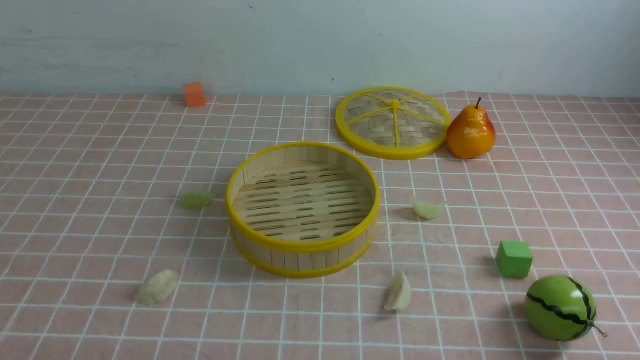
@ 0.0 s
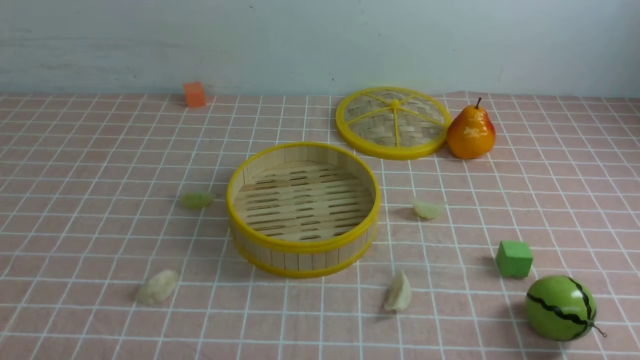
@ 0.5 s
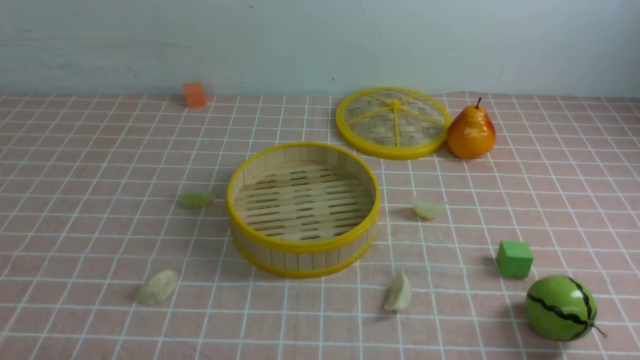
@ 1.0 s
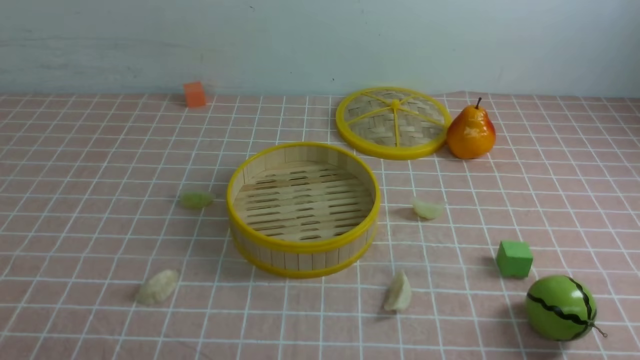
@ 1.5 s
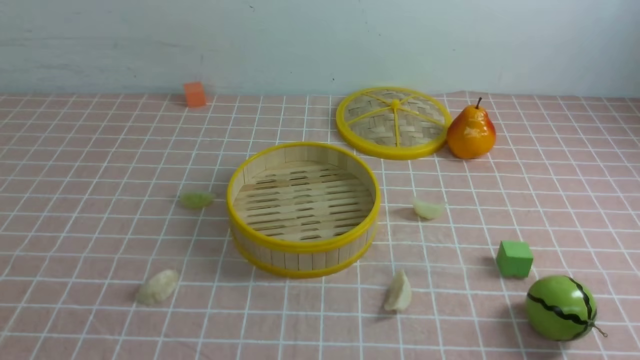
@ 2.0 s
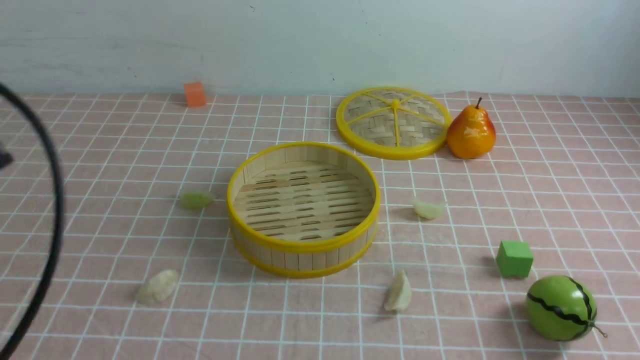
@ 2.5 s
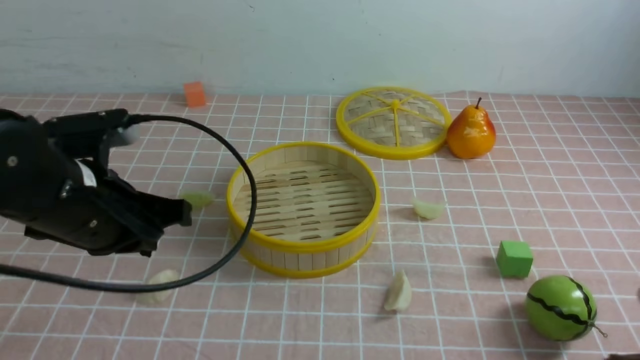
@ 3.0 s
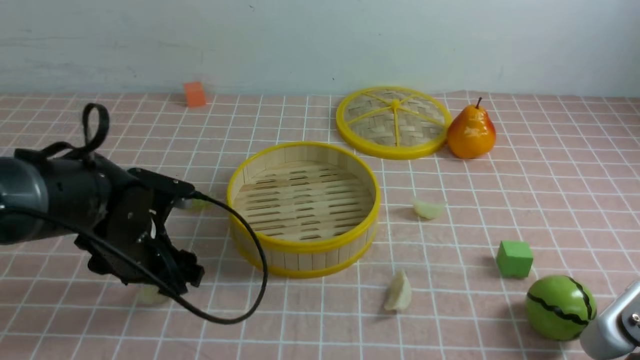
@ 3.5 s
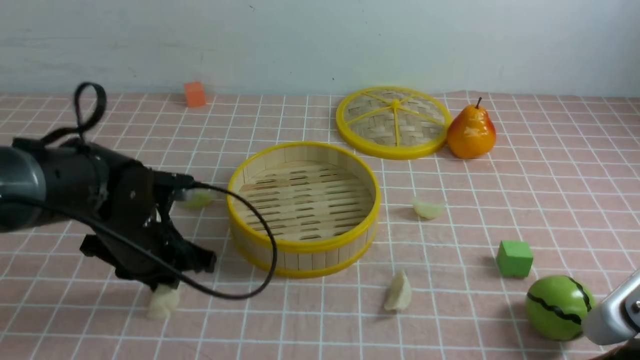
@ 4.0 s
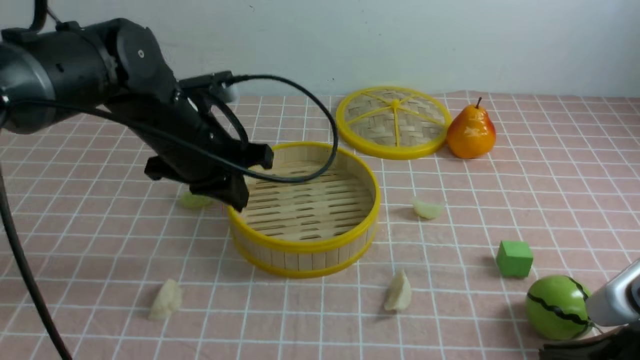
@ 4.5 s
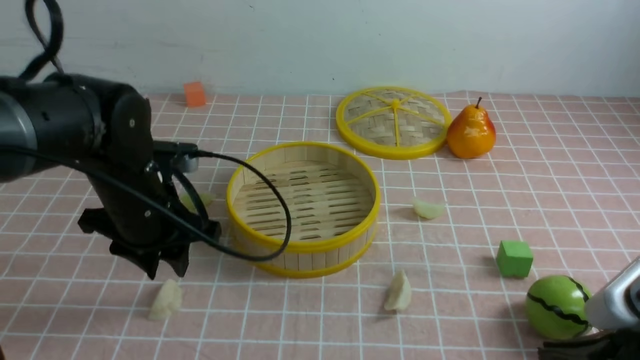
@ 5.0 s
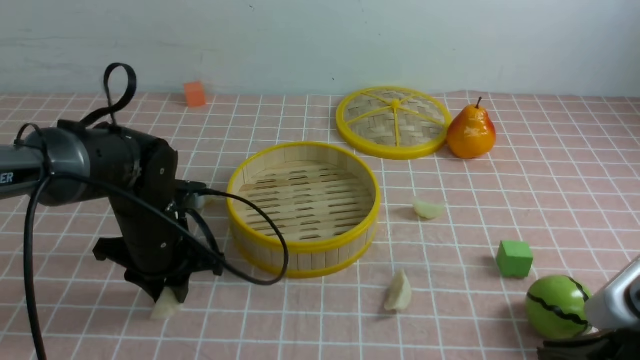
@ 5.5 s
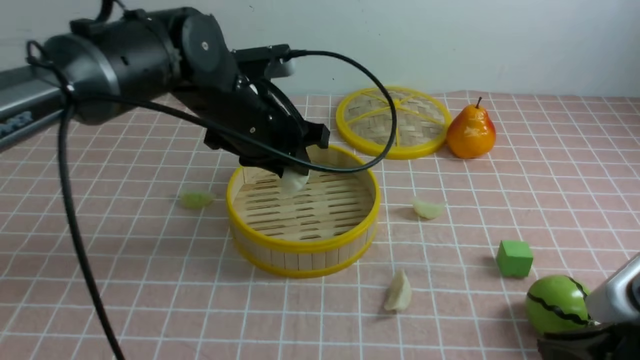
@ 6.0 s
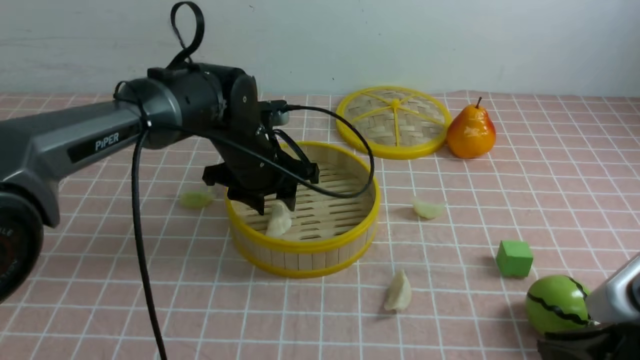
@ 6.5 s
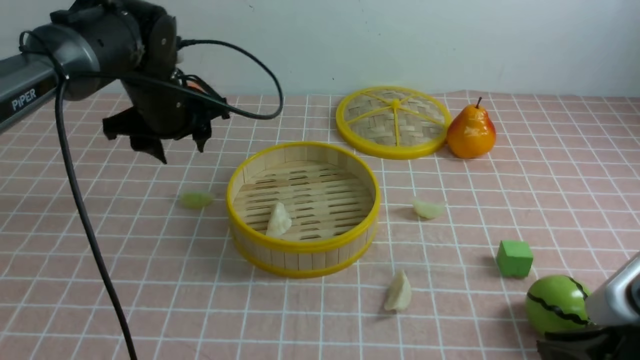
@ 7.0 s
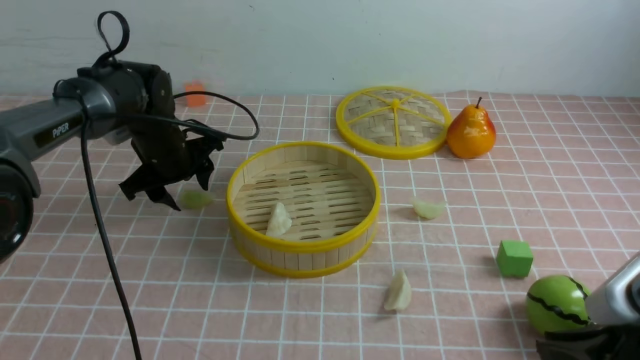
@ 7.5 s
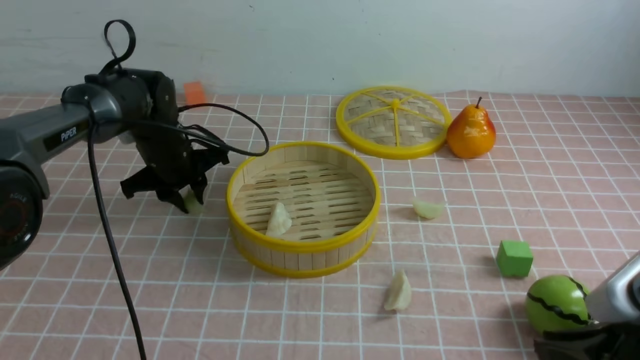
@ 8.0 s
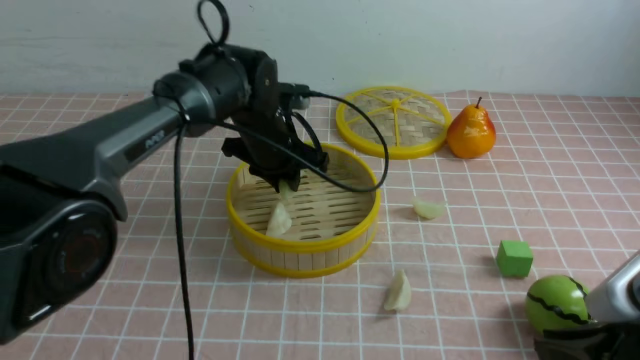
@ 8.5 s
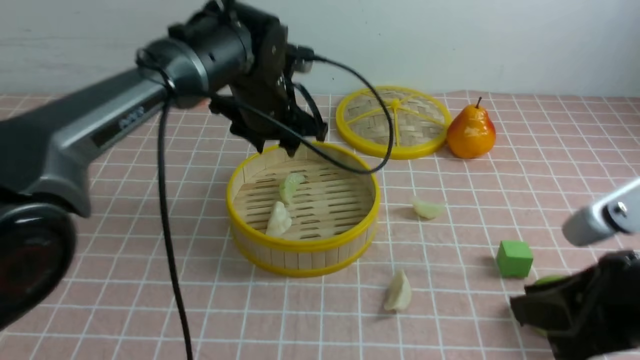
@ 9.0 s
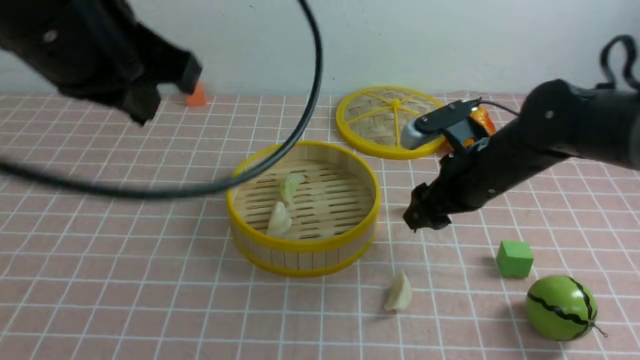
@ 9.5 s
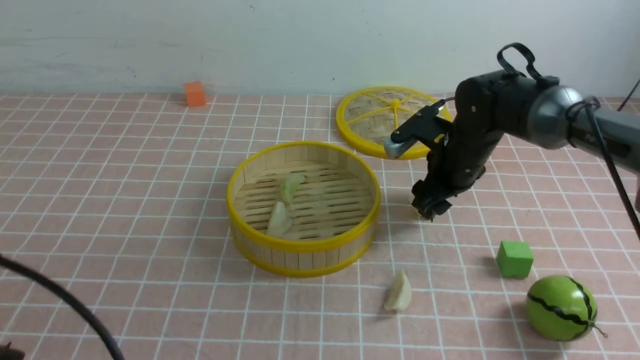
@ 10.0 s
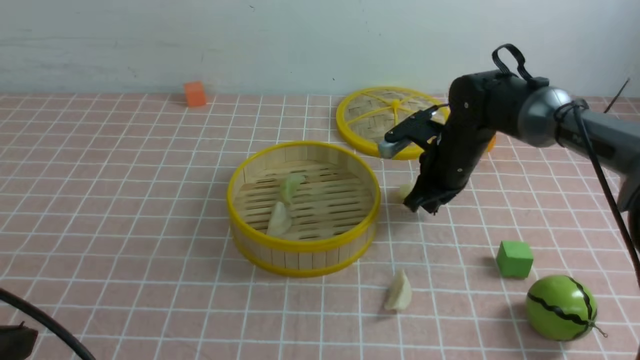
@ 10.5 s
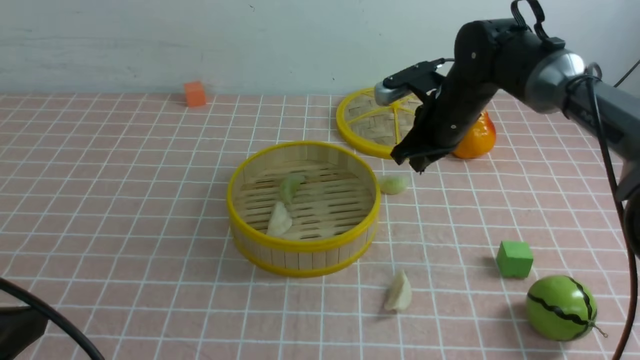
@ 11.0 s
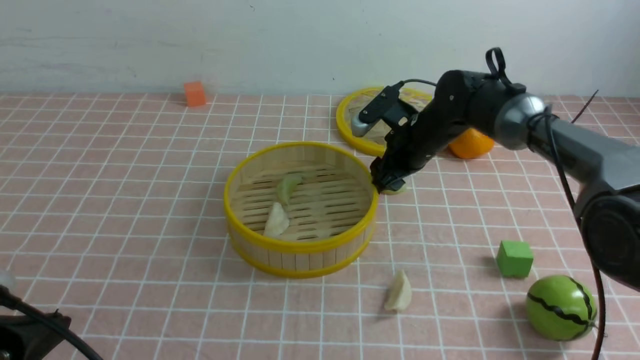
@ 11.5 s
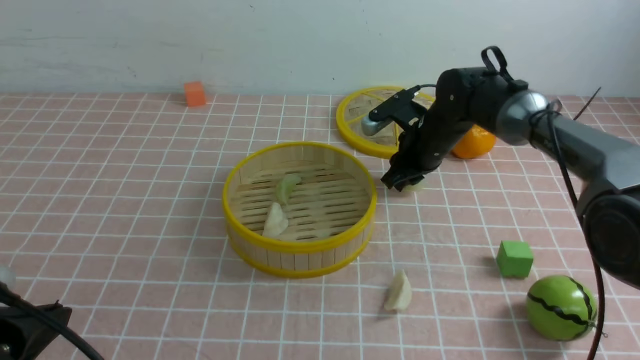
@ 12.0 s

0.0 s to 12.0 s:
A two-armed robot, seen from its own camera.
Task of the whole recording: put the dumplings into the steamer on the table with the pink tablecloth.
Step, 0.0 to 5.5 s: use the left arm to grab a dumpling.
Step, 6.0 to 6.5 s: use the left arm to put the dumpling into the steamer.
Step, 7.0 to 8.0 s: use the left arm to grab a dumpling.
Step, 9.0 to 12.0 s: use the right arm to grab a dumpling.
2.0 to 4.0 s: The left gripper heads forward, covering roughly 30 cm, and opens, then closes once more. Meanwhile the right gripper moves forward and to the left, roughly 10 cm.
4.0 to 6.0 s: The left gripper moves up and down over about 10 cm, changing direction 2 times, and closes, then opens again.
6.0 to 8.0 s: The left gripper moves forward, to the left and downward, some 15 cm, and opens, then closes again.
8.0 to 10.0 s: The right gripper heads forward, covering about 30 cm, and opens up. The left gripper moves backward and upward, approximately 40 cm, and closes its fingers.
10.0 to 12.0 s: The left gripper shifts some 5 cm downward, while the right gripper shifts roughly 5 cm forward, and closes up.

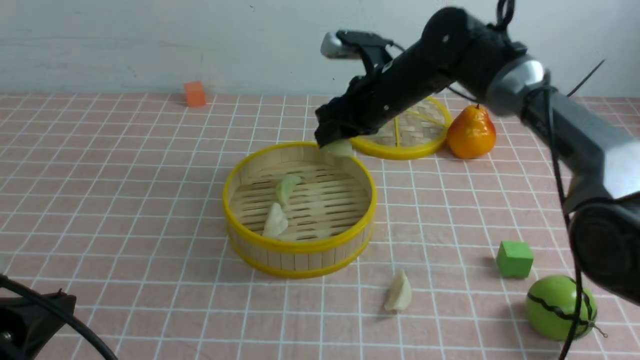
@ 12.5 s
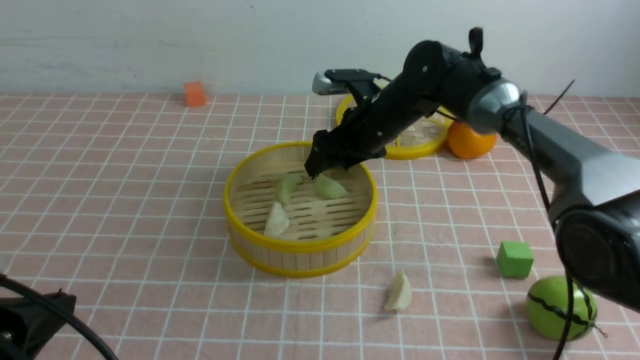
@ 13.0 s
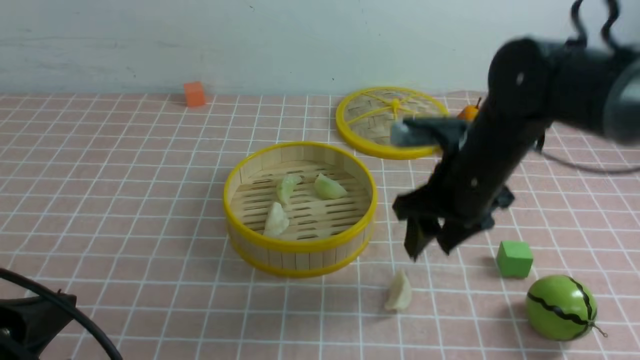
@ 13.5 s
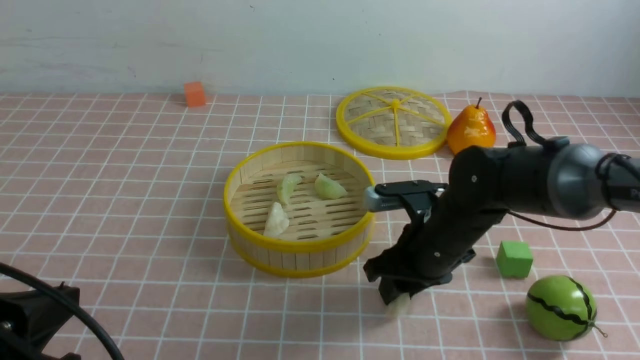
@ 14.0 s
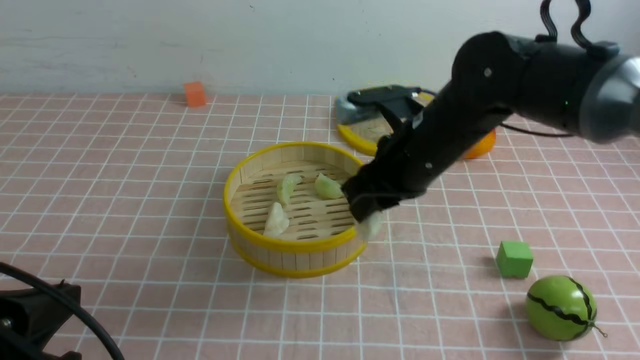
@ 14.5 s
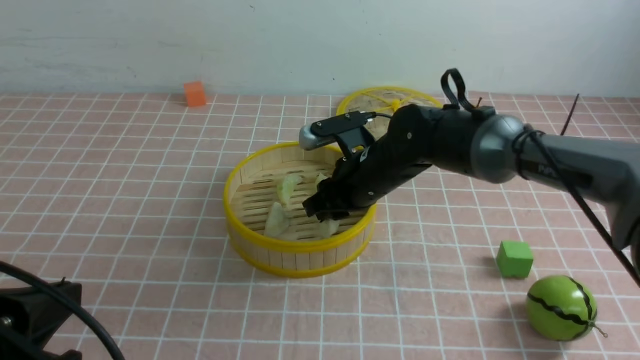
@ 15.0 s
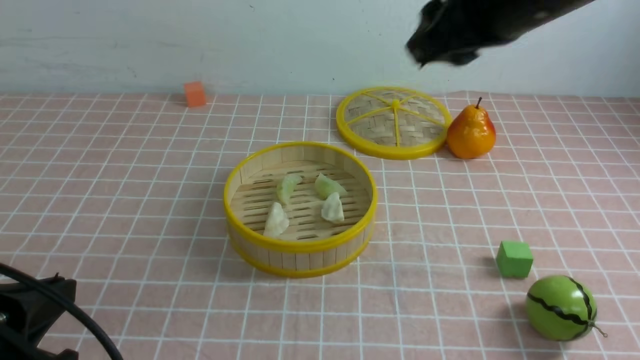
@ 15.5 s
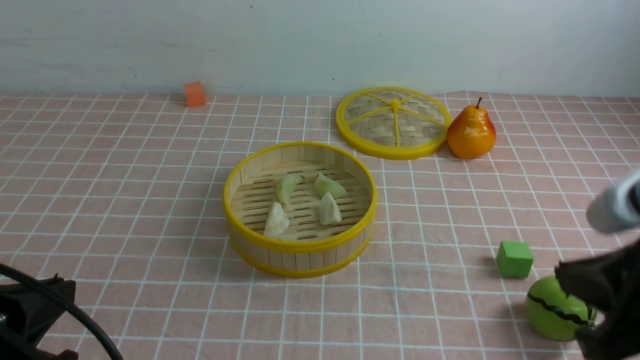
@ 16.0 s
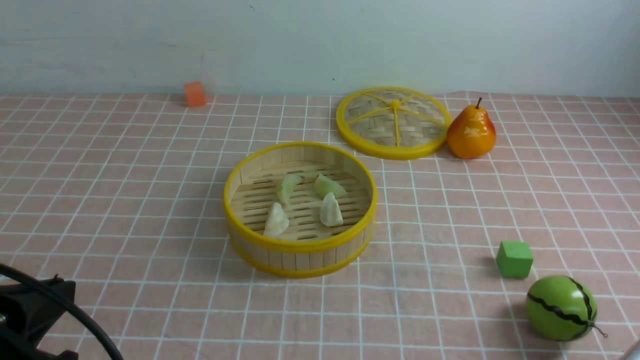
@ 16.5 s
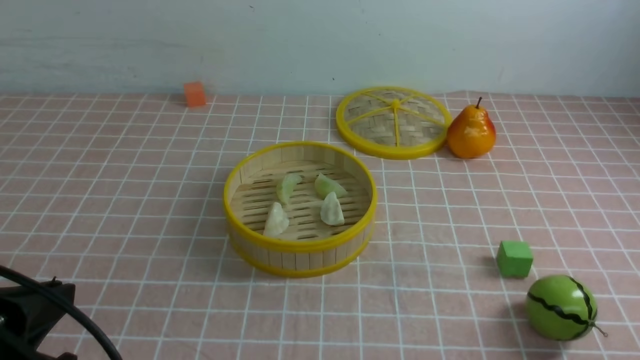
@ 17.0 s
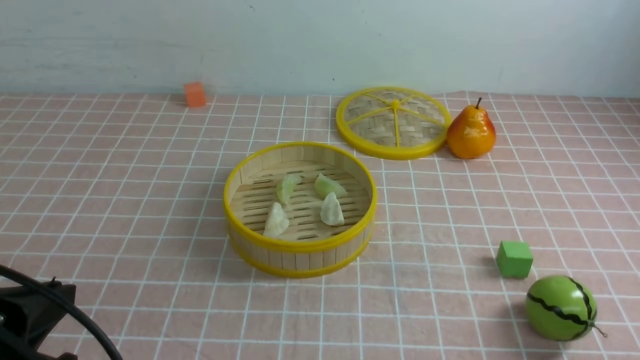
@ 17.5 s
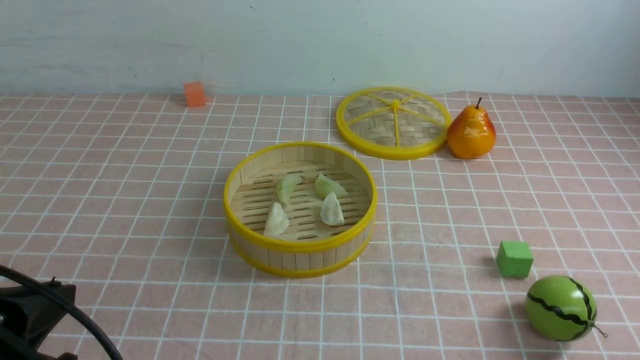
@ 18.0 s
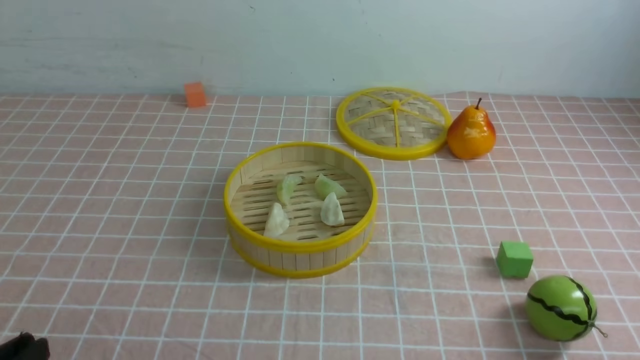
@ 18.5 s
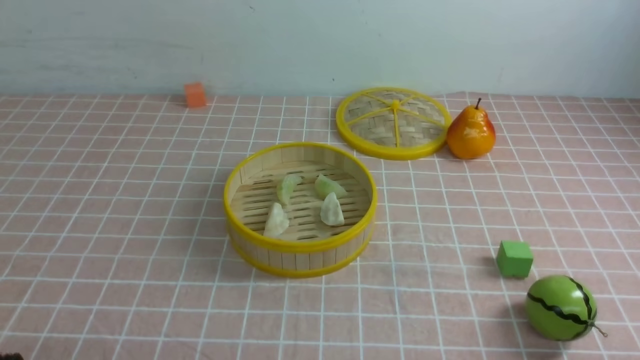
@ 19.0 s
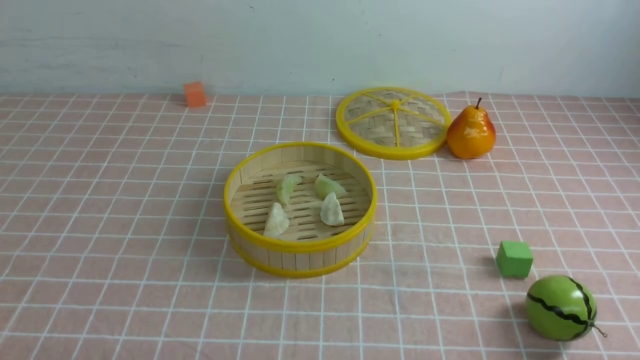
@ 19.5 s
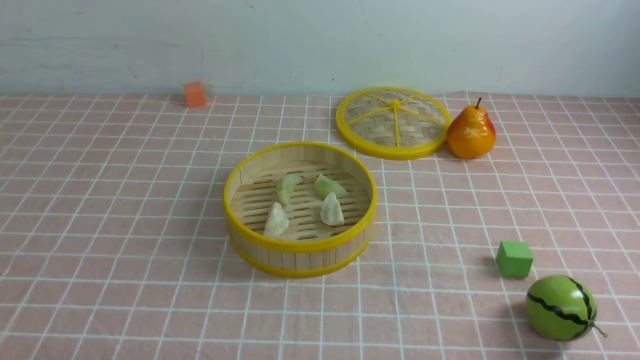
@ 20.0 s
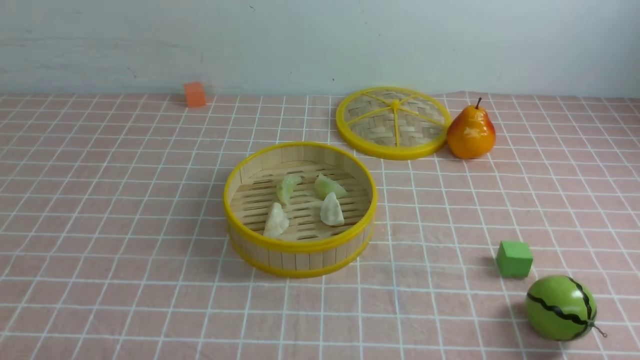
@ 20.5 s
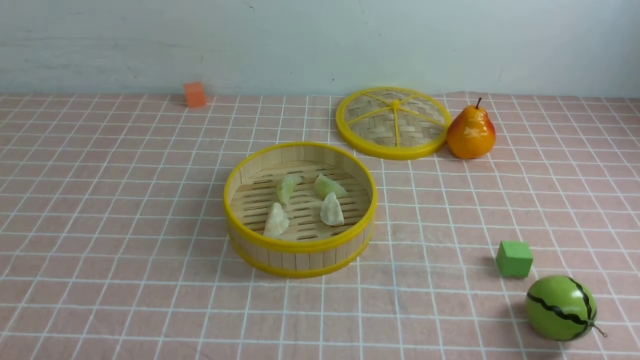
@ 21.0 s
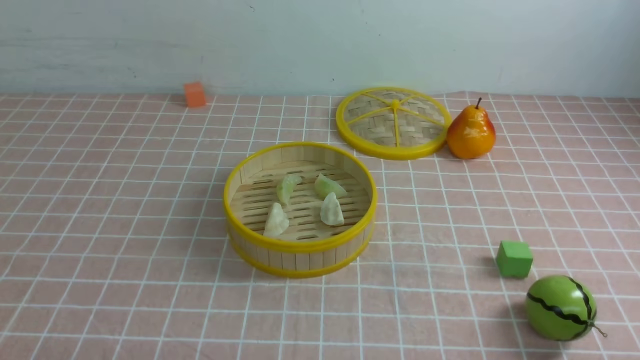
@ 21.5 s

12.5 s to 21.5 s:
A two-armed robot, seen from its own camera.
Task of the whole recording: put the dumplings into the steamer on the table with the pink tablecloth.
Step, 13.0 to 14.0 s: use the right arm to grab a dumpling.
Step, 14.5 to 15.0 s: use the right arm to put the dumpling into the steamer.
12.5 to 14.5 s: The right gripper heads backward, covering some 15 cm, and opens and closes again.
14.5 to 17.0 s: The right gripper is displaced backward and to the right by approximately 35 cm, and closes its fingers.
17.0 to 19.5 s: The left gripper heads downward and backward, covering some 10 cm.
19.5 to 21.5 s: The two grippers keep their place.
